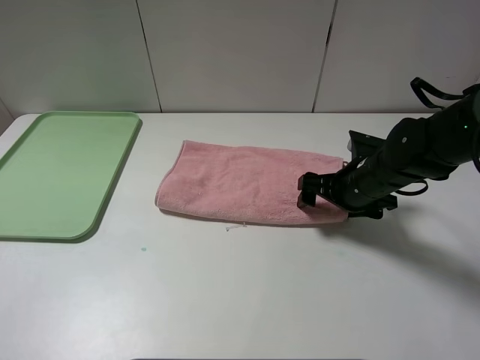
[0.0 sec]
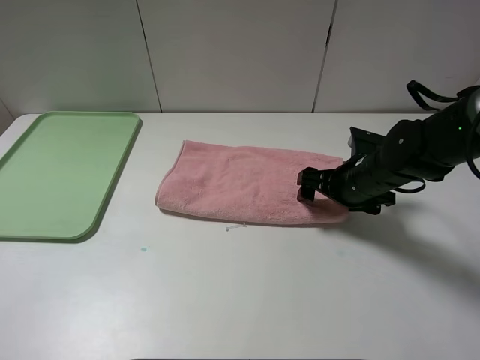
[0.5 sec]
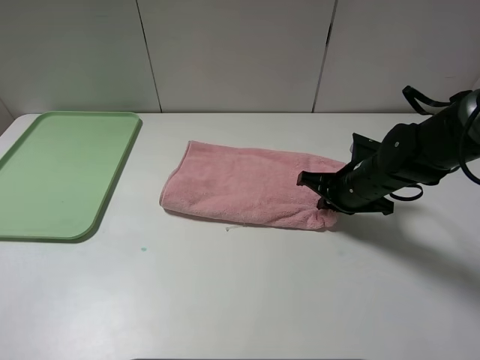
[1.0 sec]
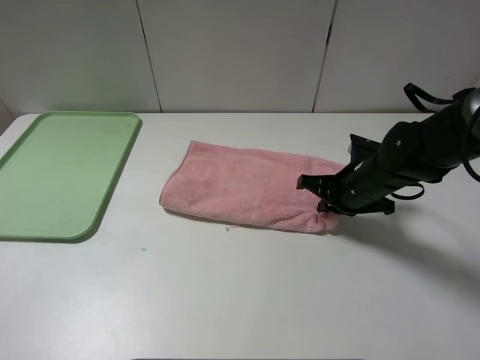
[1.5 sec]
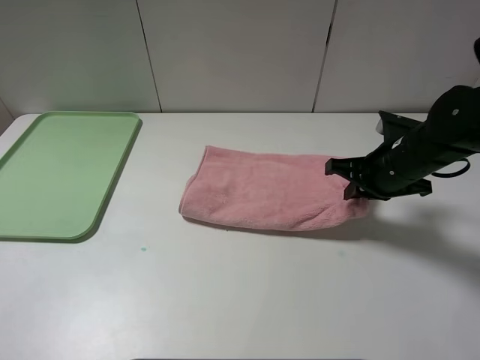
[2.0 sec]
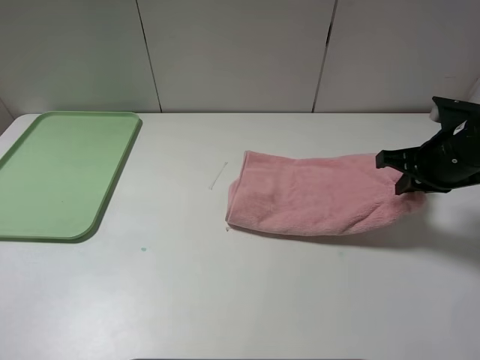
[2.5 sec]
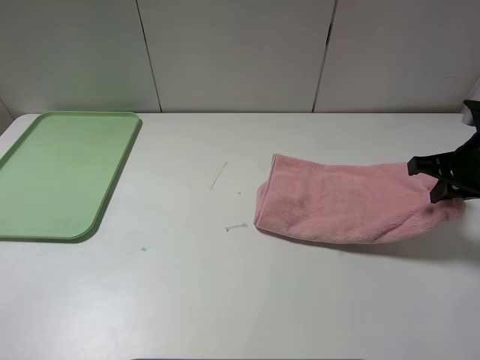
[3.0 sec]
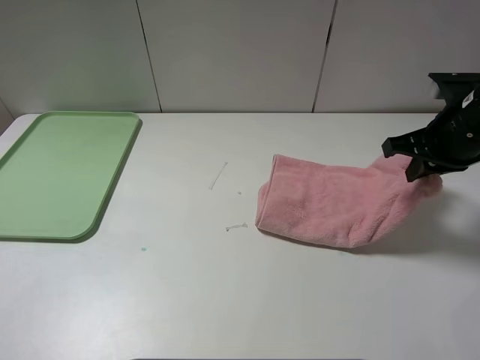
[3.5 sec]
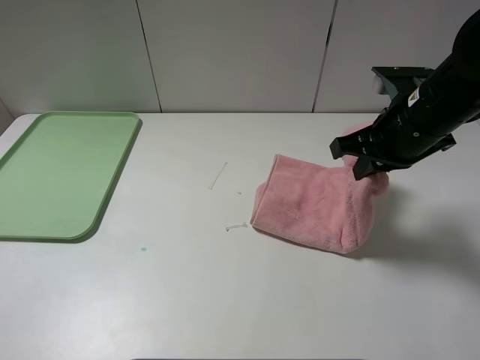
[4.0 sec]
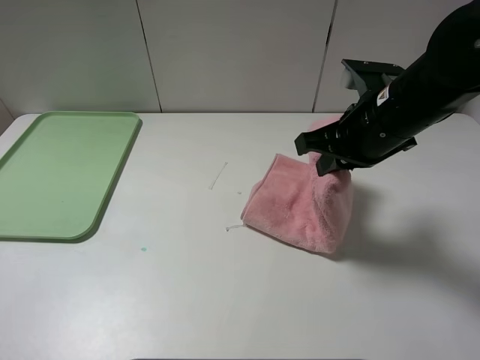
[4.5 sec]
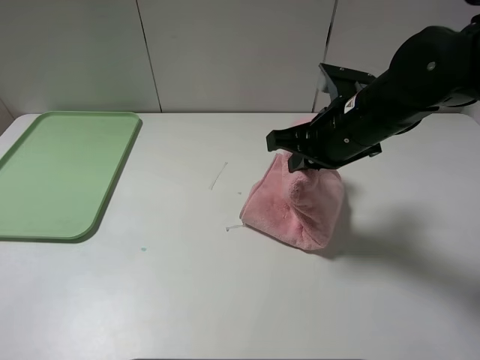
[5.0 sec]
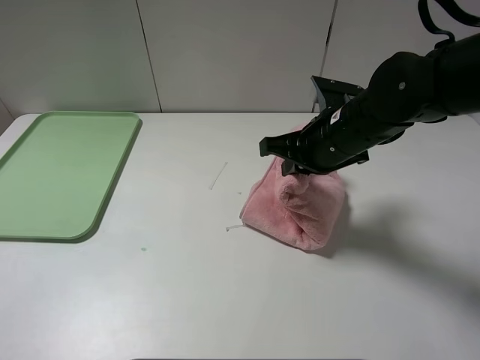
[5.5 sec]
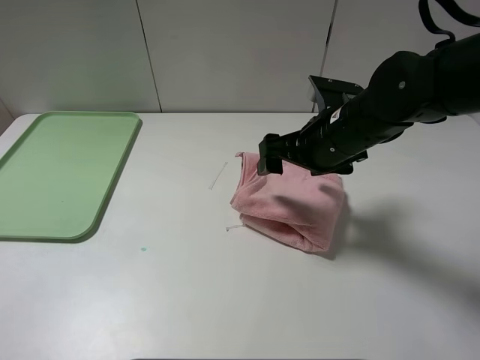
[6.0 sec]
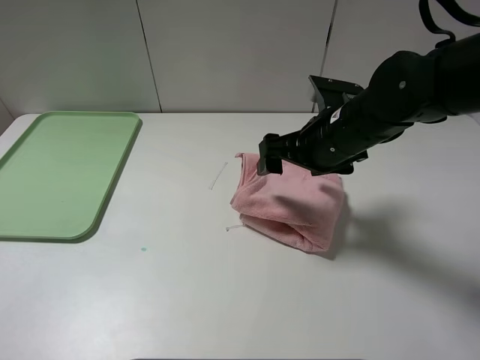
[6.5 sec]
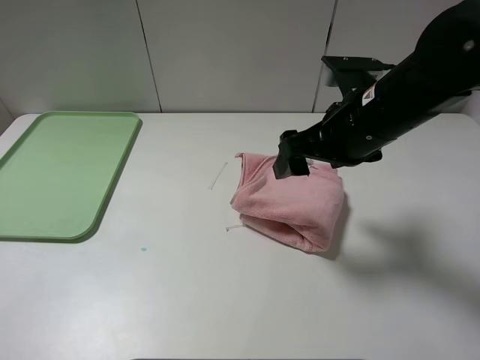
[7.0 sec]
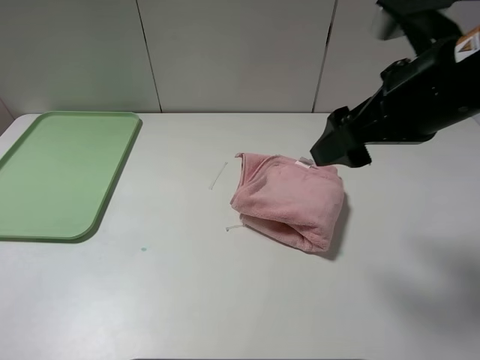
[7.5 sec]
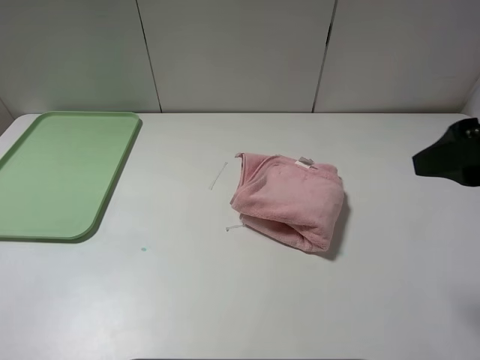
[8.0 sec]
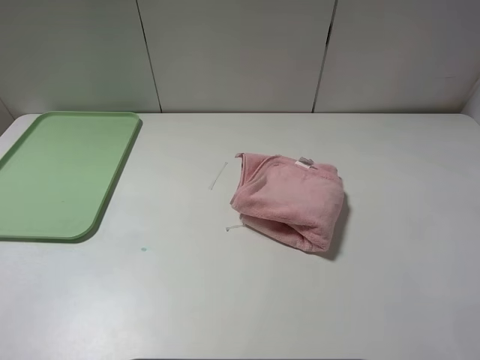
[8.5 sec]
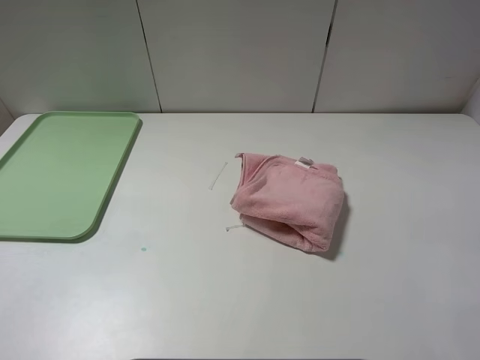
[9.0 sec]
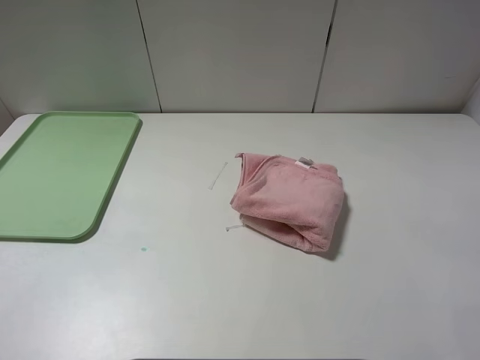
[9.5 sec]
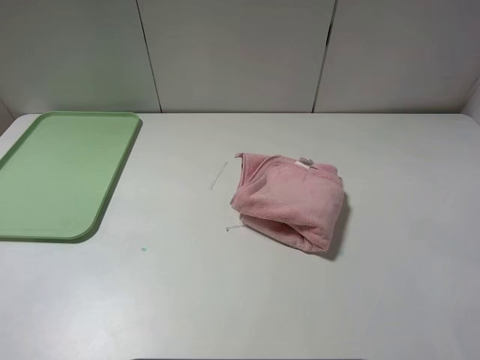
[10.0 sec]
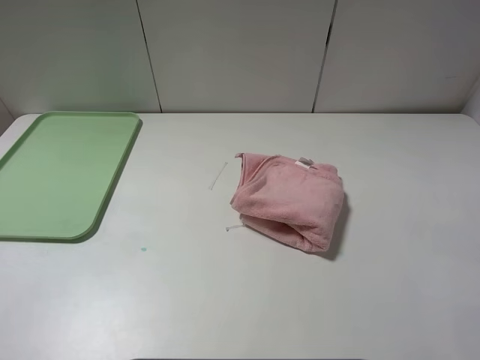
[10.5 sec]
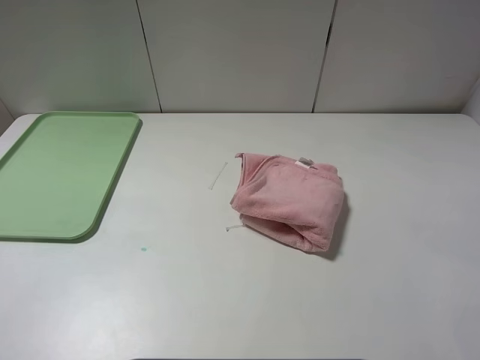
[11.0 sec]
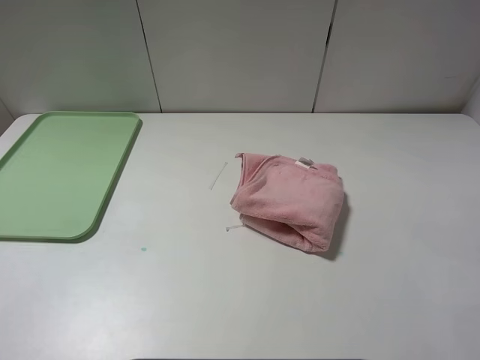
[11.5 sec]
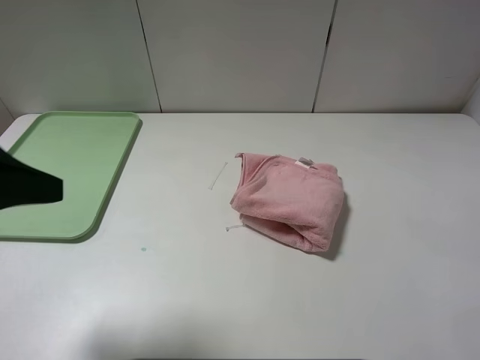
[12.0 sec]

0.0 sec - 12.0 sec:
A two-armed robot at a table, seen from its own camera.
Step, 0.0 sec - 5.5 sec: Fold the pink towel from right to left with right gripper.
0.0 sec - 2.0 sec: The right gripper changes place by about 5 cm, and closes its fingers.
2.0 sec - 4.0 sec: The right gripper moves upward, roughly 10 cm, and moves about 10 cm to the right and comes back.
4.0 sec - 6.0 sec: The right gripper is displaced to the left by about 5 cm, and opens its fingers.
6.0 sec - 8.0 sec: The right gripper is displaced to the right, backward and upward by about 20 cm.
8.0 sec - 10.0 sec: The right gripper moves backward, roughly 15 cm.
10.0 sec - 12.0 sec: The left gripper is displaced forward by some 10 cm.

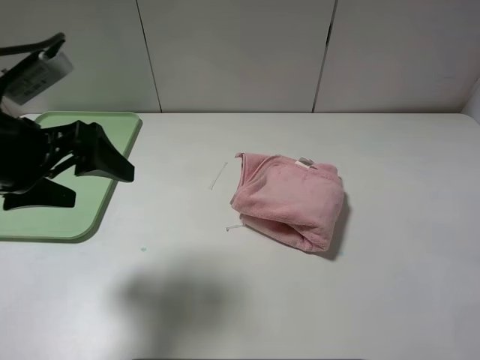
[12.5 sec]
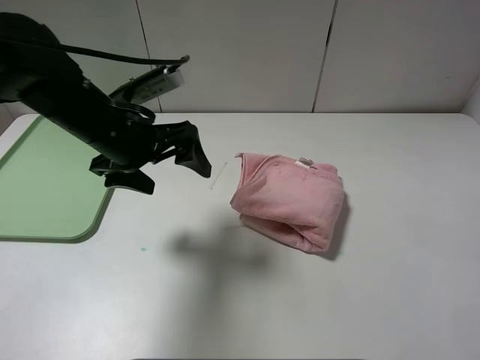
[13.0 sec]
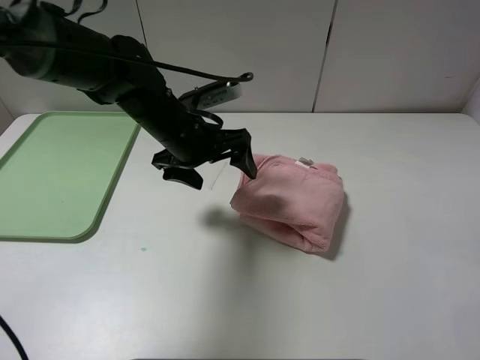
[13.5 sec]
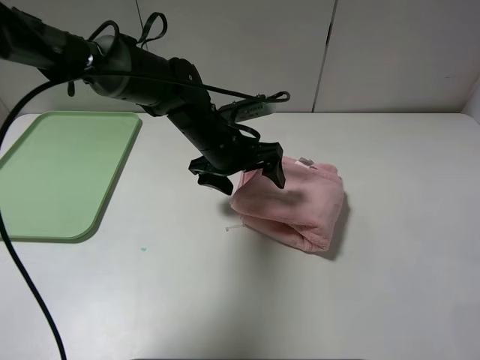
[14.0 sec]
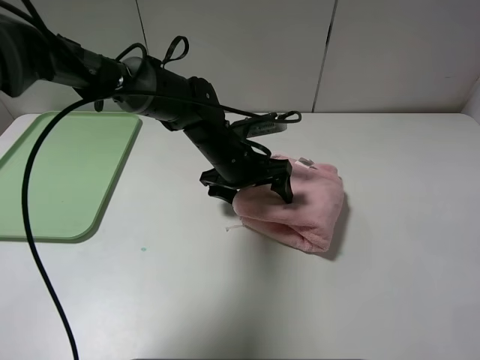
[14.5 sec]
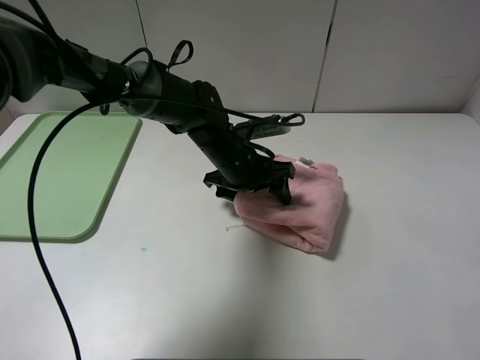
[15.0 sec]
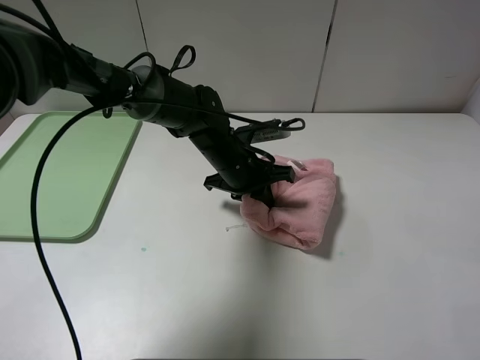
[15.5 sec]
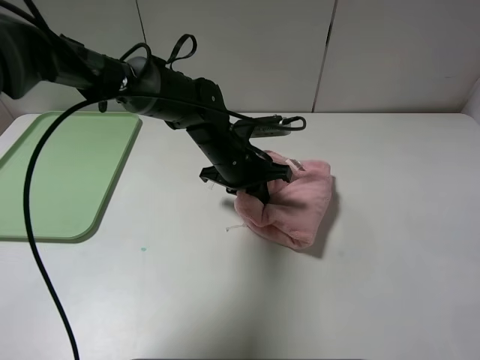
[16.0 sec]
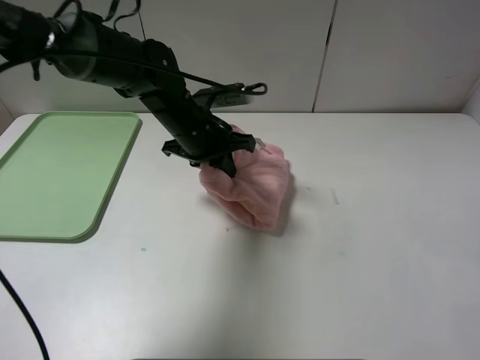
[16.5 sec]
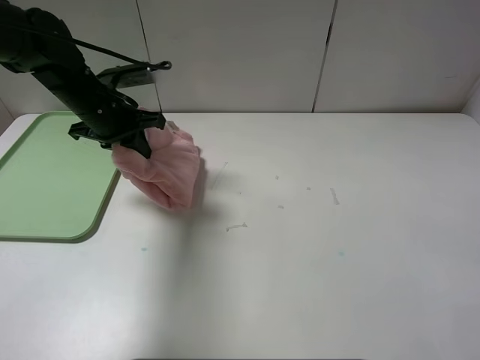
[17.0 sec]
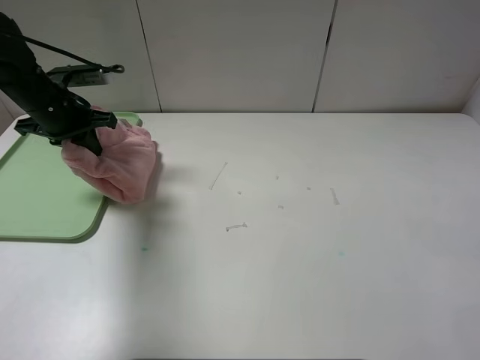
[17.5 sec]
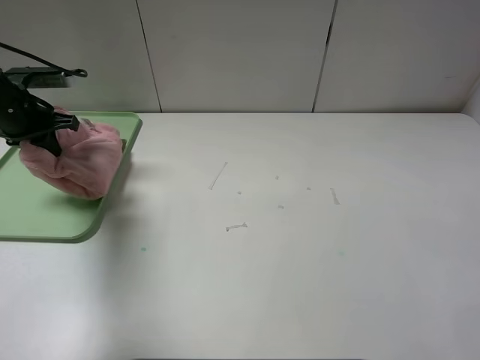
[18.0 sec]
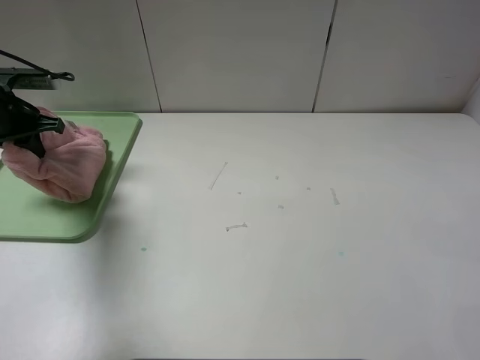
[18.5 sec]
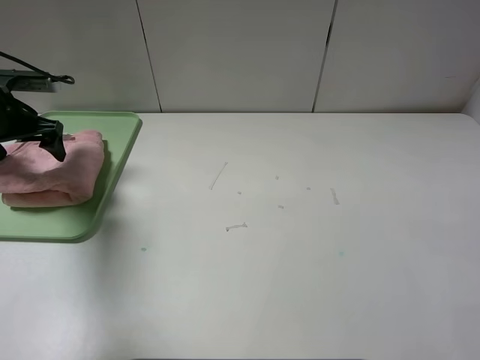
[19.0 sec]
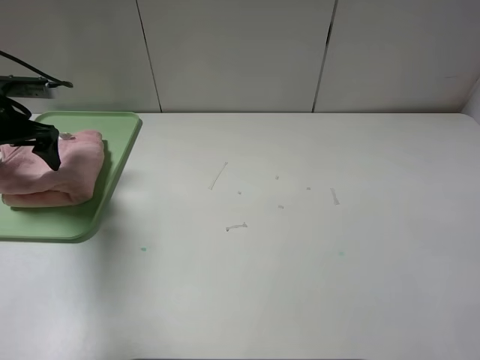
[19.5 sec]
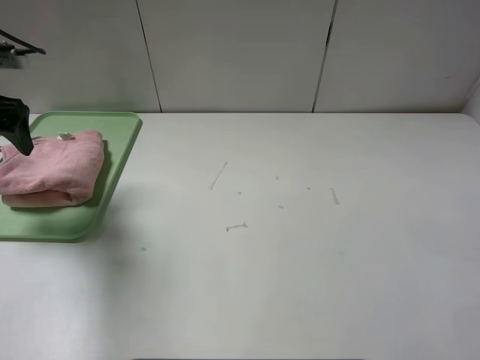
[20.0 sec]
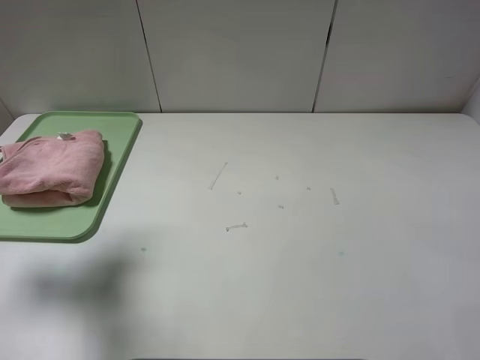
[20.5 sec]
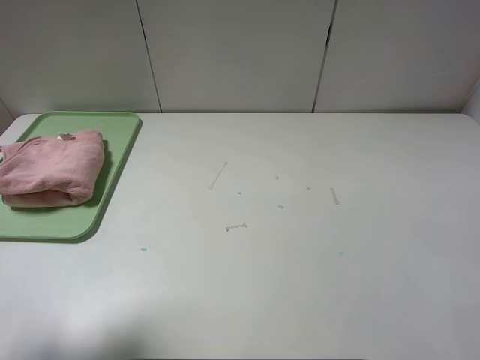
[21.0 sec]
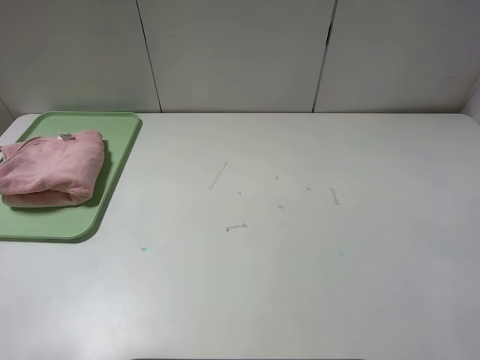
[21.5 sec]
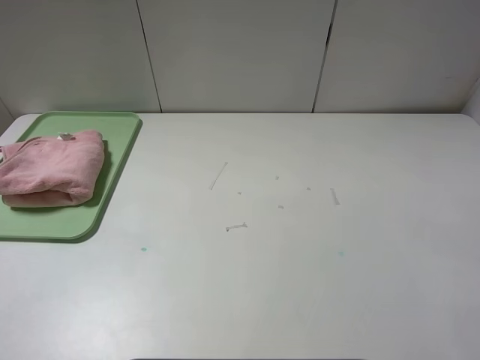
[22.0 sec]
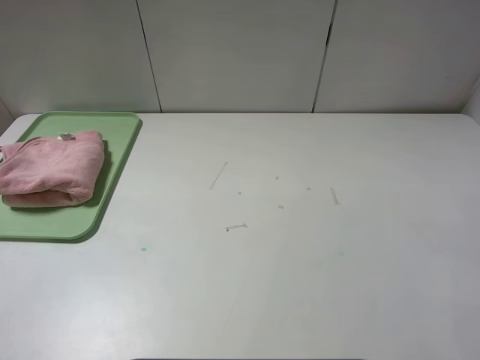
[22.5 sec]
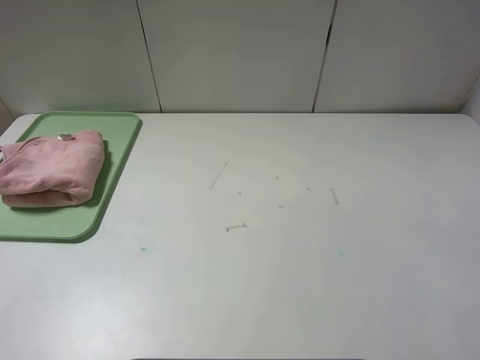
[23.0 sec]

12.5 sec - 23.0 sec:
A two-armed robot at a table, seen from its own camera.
Step, 12.5 sec - 19.5 sec: Place the folded pink towel on the tray with the left gripper.
12.5 sec - 14.5 sec: The left gripper goes roughly 30 cm to the right, forward and downward.
14.5 sec - 16.5 sec: The left gripper is displaced to the left and upward by roughly 10 cm, and closes up.
16.5 sec - 19.0 sec: The left gripper moves to the left, roughly 30 cm, and opens.
19.0 sec - 21.0 sec: The left gripper is displaced backward and upward by roughly 30 cm.
21.0 sec - 23.0 sec: The left gripper heads backward, covering some 10 cm.
